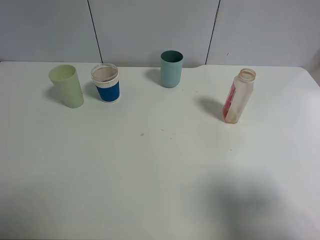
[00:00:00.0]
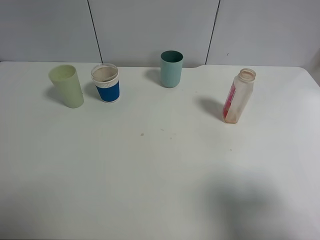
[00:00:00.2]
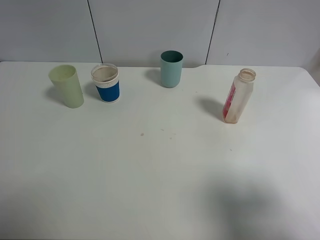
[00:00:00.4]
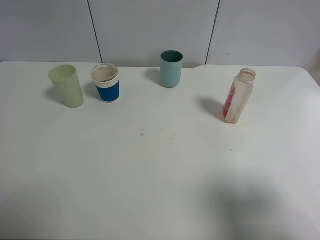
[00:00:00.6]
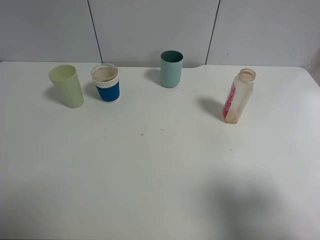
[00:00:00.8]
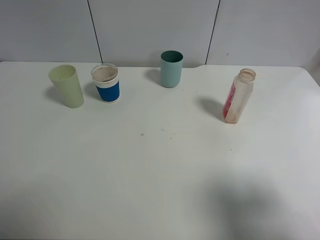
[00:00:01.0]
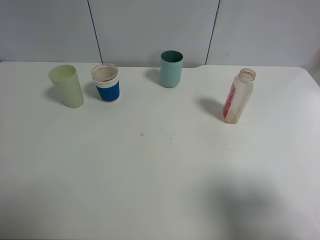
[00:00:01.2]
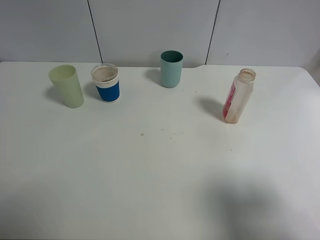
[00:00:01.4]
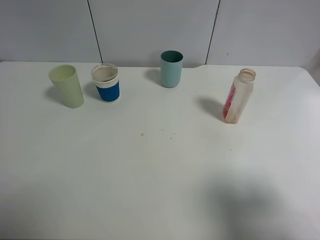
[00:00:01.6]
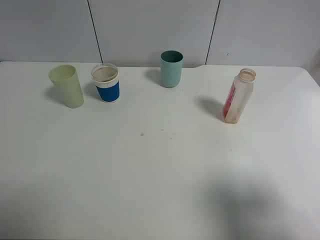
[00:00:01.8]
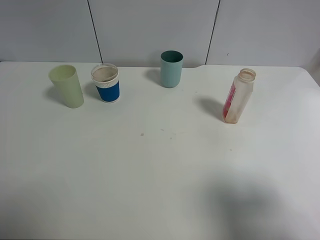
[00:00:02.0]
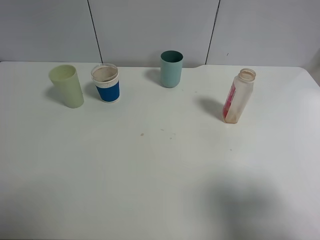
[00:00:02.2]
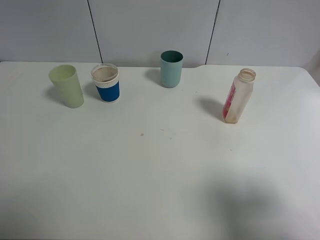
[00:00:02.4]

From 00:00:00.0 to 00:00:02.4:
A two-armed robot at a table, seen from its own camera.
Task of the whole recording: use a clamp to hold the bottle of the drink, pour the beverage into a random cup, then clamp the cup containing the drink and pour the drink into another random cup.
From 00:00:01.2 to 00:00:02.4: The two grippers keep their place.
